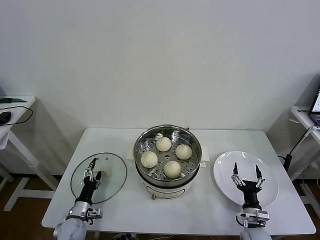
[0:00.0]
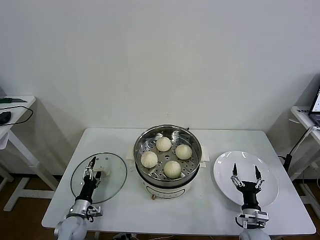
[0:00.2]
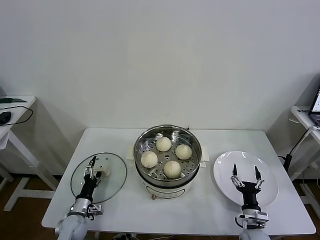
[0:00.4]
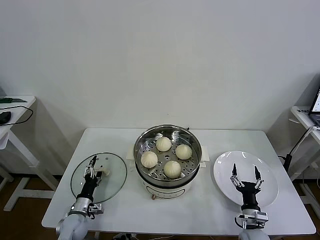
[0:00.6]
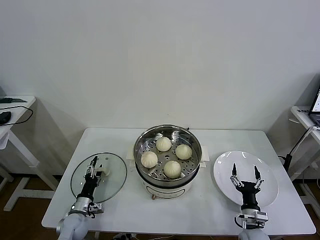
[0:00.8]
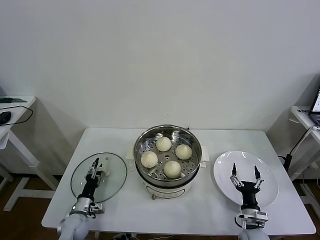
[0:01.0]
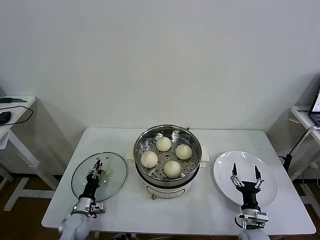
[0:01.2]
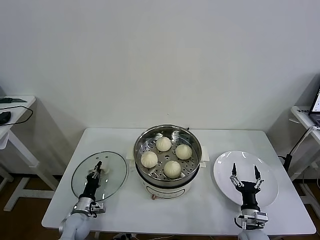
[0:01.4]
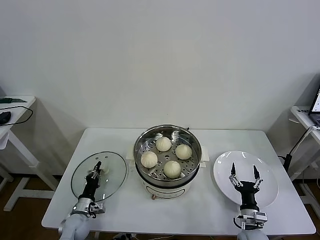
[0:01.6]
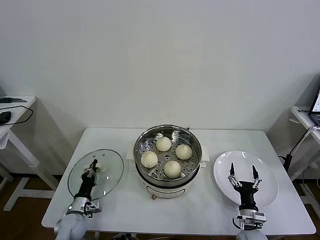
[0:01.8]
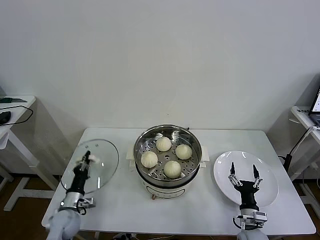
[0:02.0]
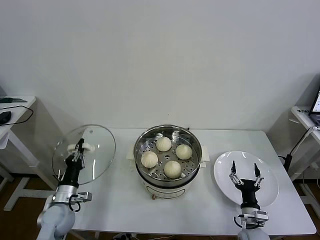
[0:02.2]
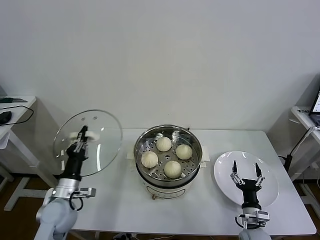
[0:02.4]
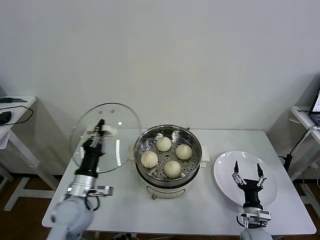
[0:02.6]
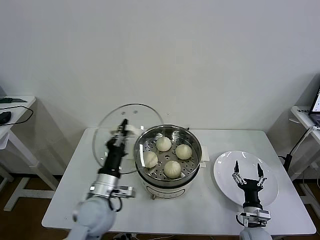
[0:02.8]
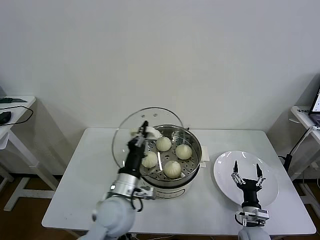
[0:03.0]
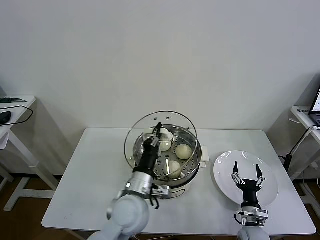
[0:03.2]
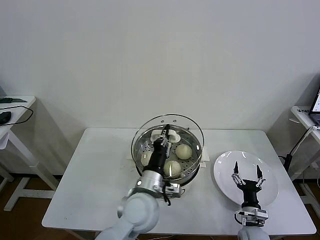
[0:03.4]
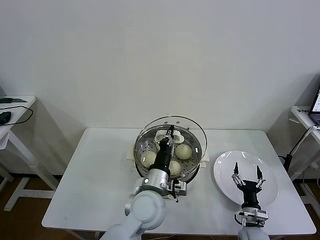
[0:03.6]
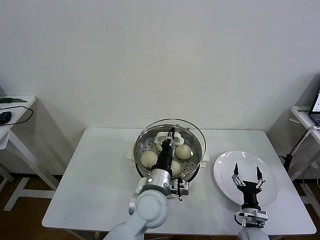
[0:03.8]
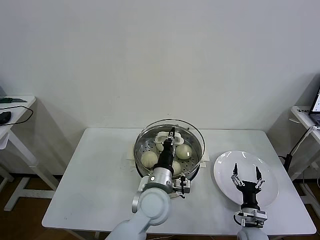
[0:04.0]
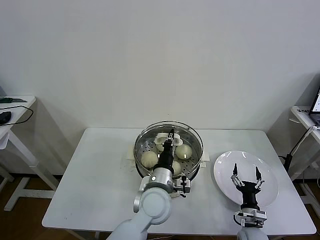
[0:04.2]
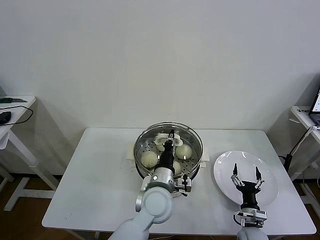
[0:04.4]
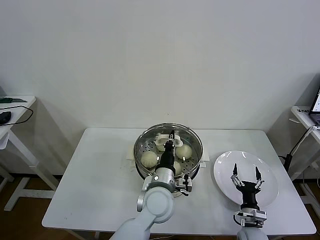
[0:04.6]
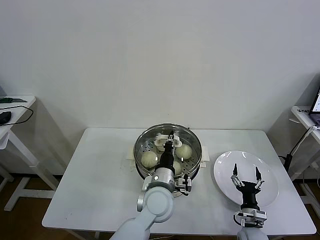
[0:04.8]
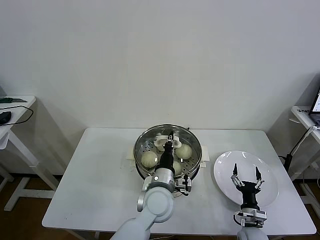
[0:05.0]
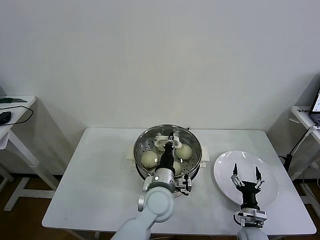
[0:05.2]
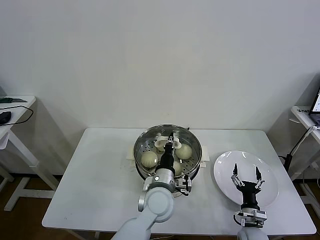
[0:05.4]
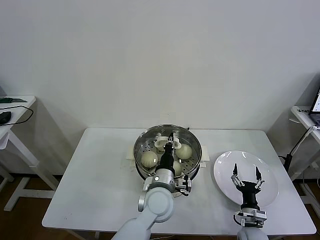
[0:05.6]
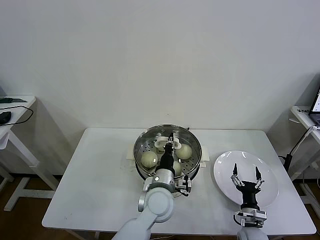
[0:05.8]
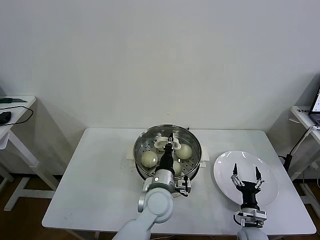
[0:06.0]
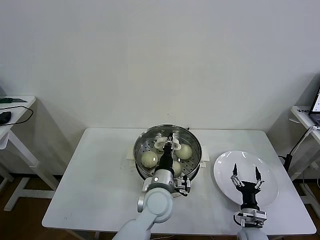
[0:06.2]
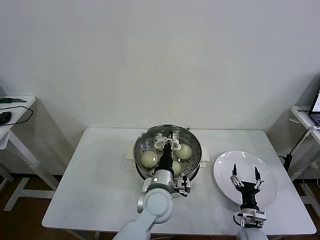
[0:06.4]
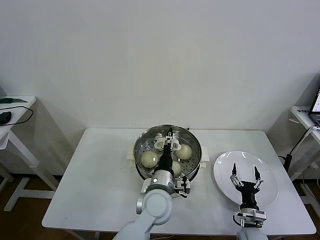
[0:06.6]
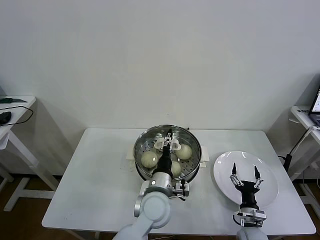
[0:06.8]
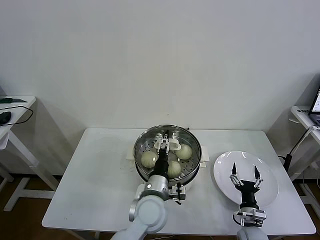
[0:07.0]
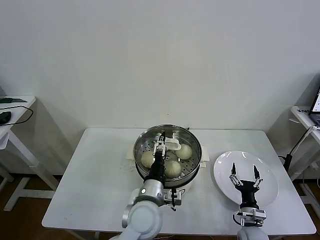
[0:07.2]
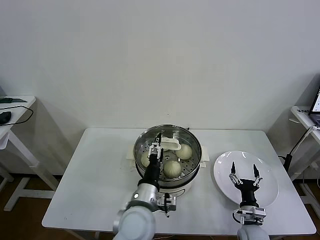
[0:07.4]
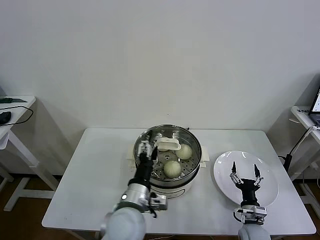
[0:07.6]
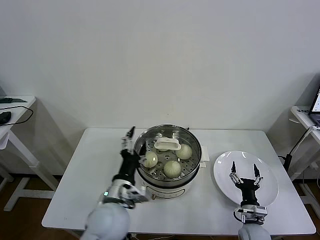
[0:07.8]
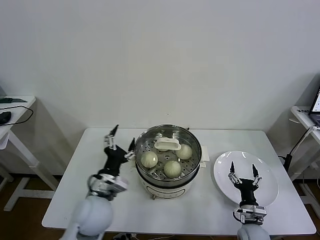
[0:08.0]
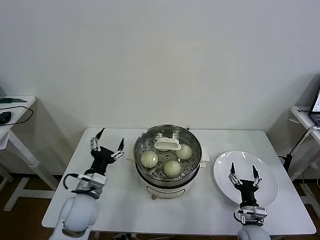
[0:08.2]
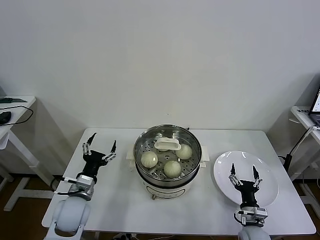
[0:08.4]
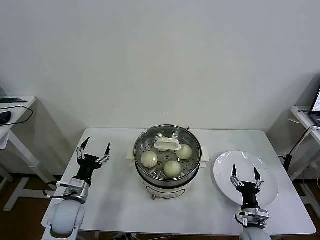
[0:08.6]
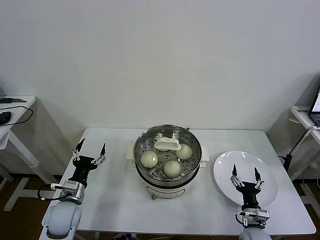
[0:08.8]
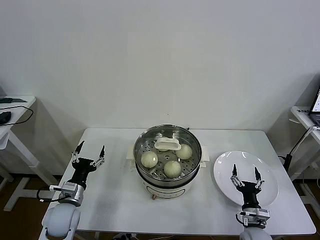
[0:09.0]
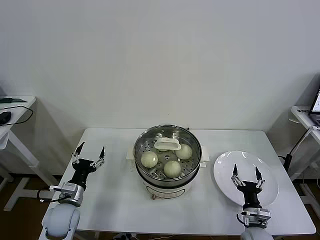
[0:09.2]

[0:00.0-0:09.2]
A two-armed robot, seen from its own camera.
Task of the whole recording: take steamed baozi put them in steamer then cover it.
Step, 0:01.8 to 0:06.4: Place the pot lid on the steamer with left gripper.
0:00.0 to 0:01.6: The left gripper closes.
0:01.6 to 0:03.0: The left gripper goes some 30 cm upward and to the right.
0:03.0 to 0:04.6: The left gripper travels to the right by roughly 15 cm.
0:04.6 to 0:06.2: There are only small adjustments of the grippers.
0:06.2 to 0:07.6: The left gripper heads backward and to the left, covering some 10 cm, and opens up.
0:07.6 to 0:09.2: The left gripper is displaced to the left and downward by roughly 25 cm.

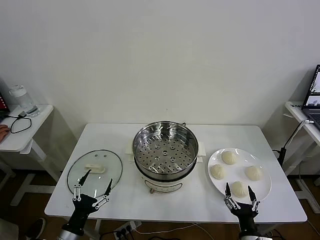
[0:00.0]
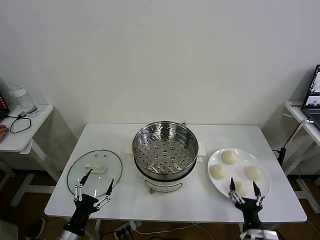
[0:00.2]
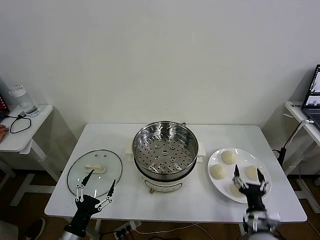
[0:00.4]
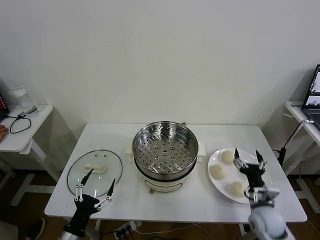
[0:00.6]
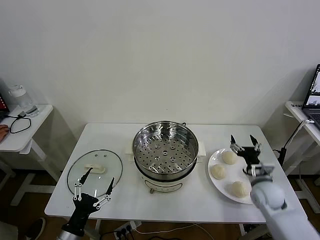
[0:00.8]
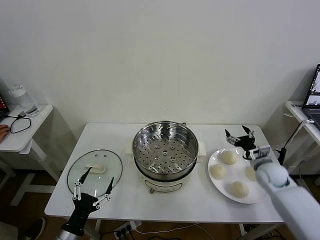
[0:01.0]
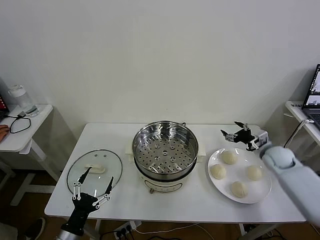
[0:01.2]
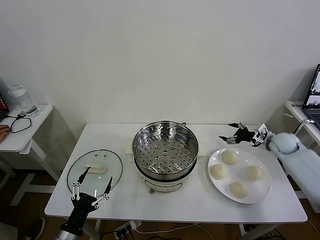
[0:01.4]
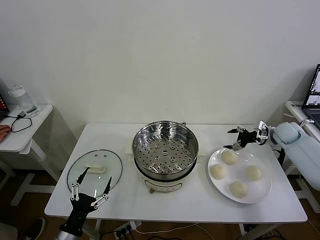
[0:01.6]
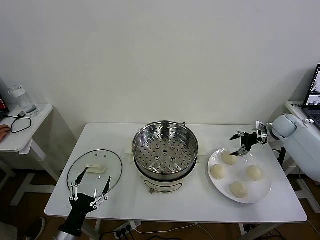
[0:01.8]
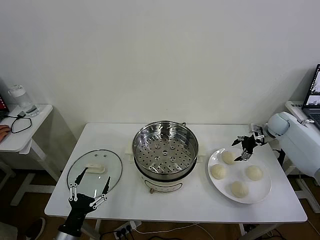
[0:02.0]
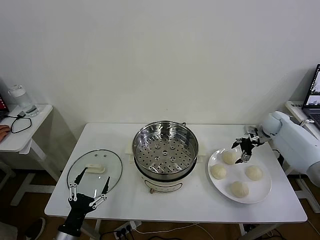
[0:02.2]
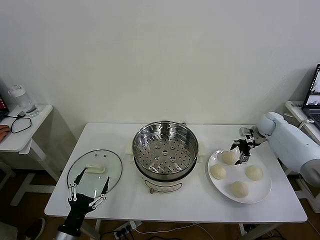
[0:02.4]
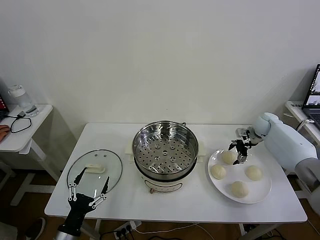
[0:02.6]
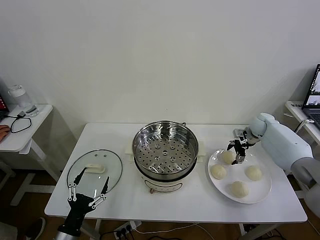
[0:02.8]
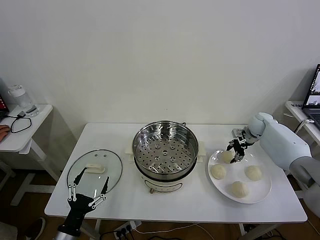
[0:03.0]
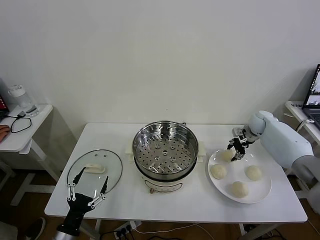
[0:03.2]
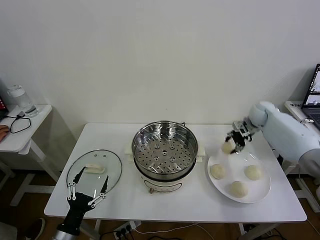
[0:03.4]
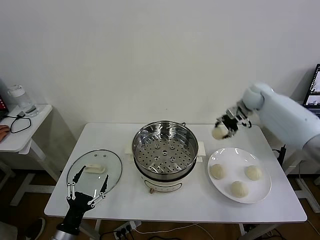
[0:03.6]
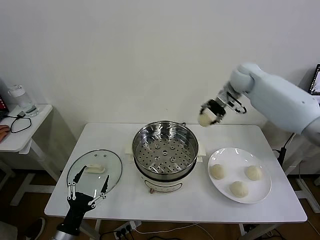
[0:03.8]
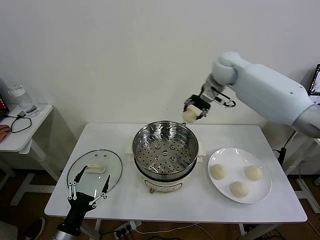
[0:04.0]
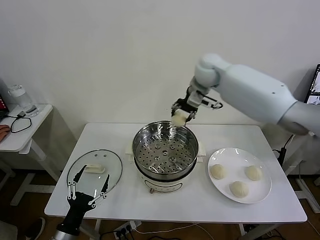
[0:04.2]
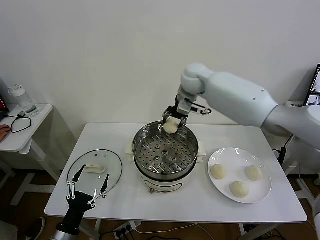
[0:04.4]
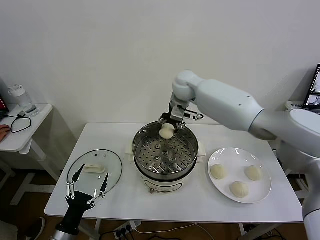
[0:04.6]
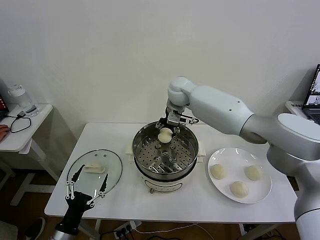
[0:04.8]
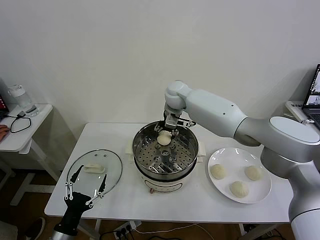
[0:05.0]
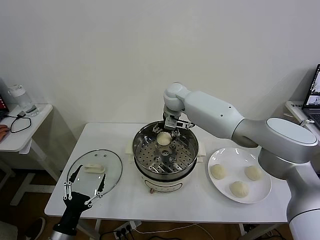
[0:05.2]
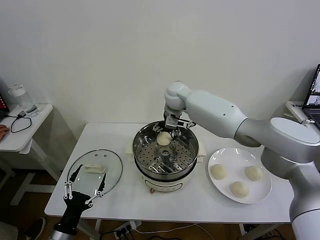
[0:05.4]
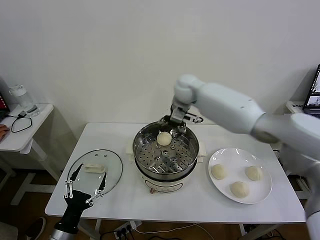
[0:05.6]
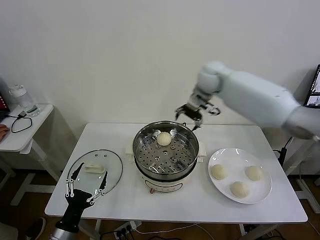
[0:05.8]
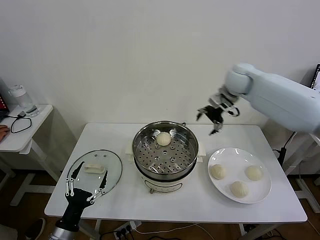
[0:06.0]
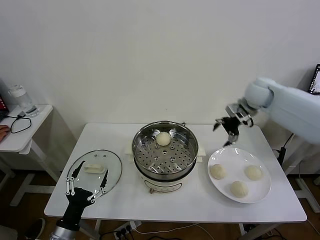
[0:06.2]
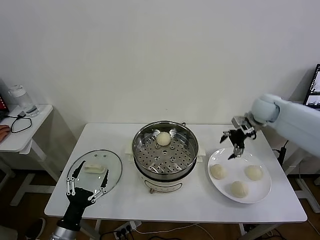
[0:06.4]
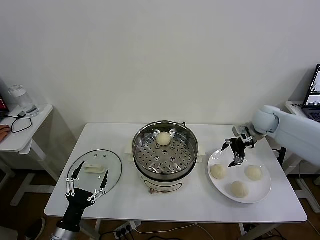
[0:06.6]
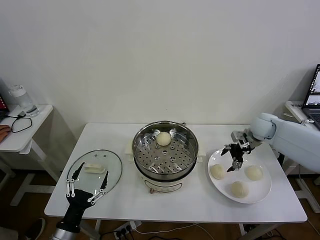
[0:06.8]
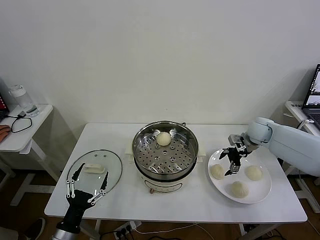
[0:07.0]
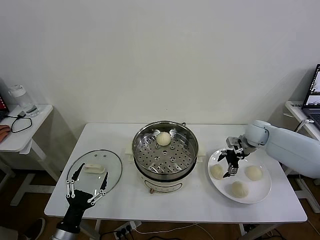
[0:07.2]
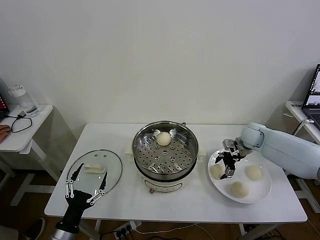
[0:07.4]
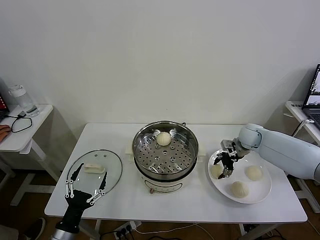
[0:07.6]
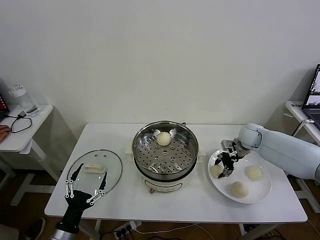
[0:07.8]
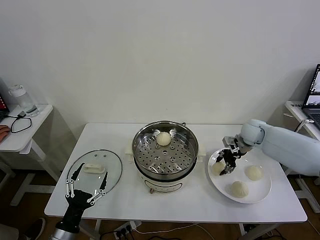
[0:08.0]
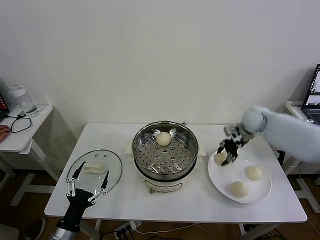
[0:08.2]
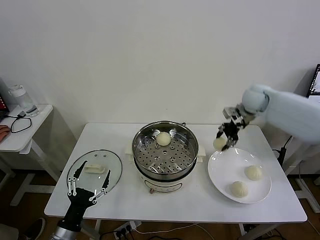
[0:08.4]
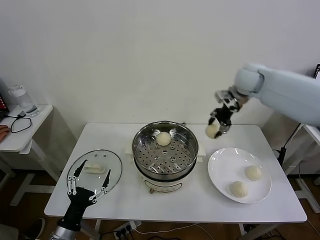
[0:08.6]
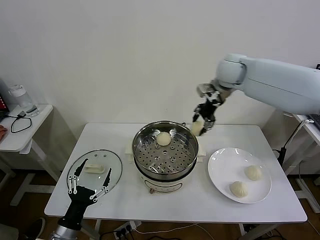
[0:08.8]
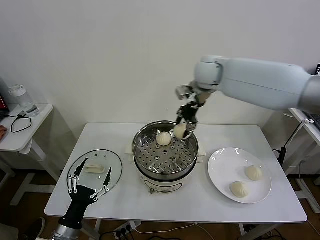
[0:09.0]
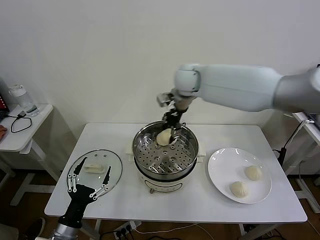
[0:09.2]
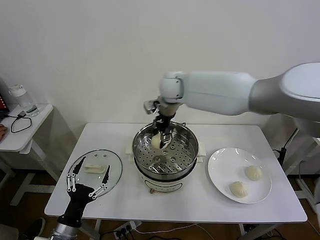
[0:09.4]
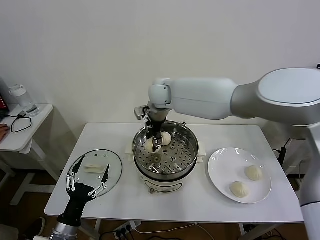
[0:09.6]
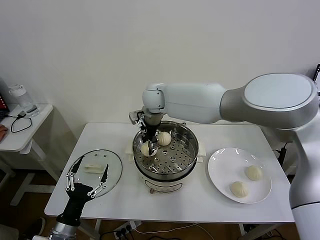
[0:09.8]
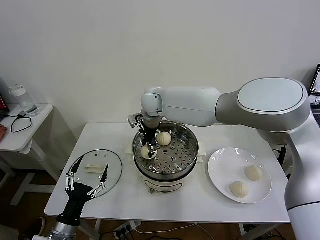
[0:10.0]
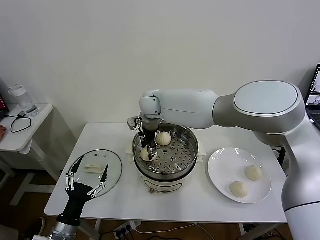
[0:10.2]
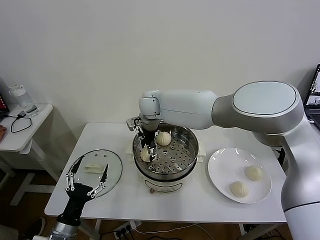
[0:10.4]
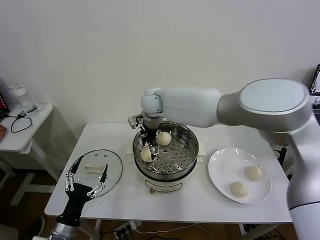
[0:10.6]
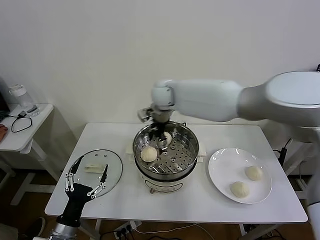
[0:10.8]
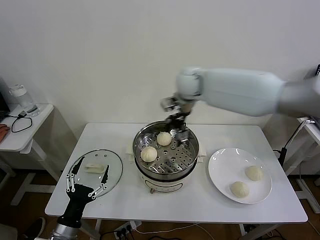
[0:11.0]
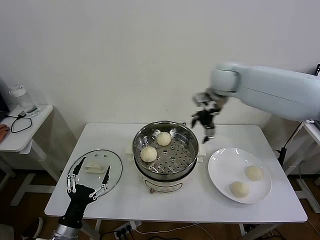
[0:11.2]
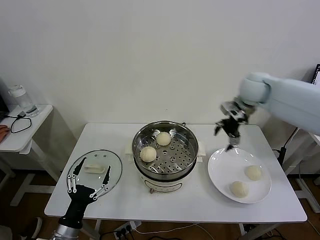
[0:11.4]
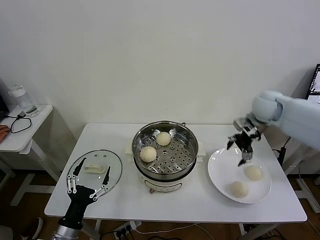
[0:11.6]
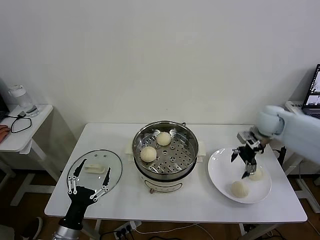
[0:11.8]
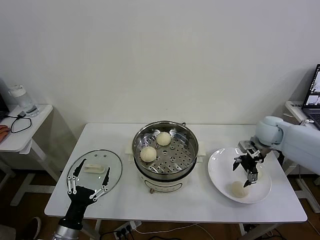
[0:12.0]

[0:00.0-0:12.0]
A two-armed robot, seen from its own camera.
Task of the whole recording: take steamed baozi put them in steamer then cover it.
Step, 0:00.0 to 0:03.0: Grasp the baozi in the plate with right gripper.
Step, 0:03.2 to 0:05.2: Place the baozi on the steamer with right gripper.
Step, 0:05.4 to 0:07.8: Grasp the baozi in the plate with right gripper.
Step, 0:08.0 to 0:10.4: Place the baozi on the steamer with right gripper.
0:01.6 to 0:03.0: The right gripper moves to the left and forward, some 10 cm, and closes.
0:03.0 to 0:04.4: The right gripper shifts about 40 cm to the left and upward.
0:04.4 to 0:06.0: The right gripper moves to the right, some 20 cm, and opens.
0:06.0 to 0:07.6: The right gripper shifts some 20 cm downward, and closes.
0:07.6 to 0:09.0: The right gripper goes some 35 cm upward and to the left.
0:09.0 to 0:10.4: The right gripper goes some 20 cm to the left and downward, and opens.
0:10.4 to 0:12.0: The right gripper shifts approximately 40 cm to the right.

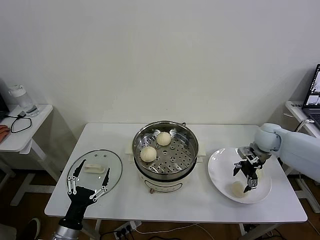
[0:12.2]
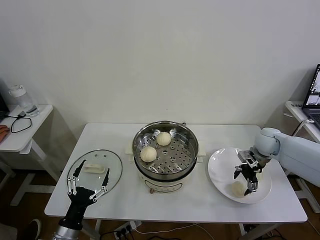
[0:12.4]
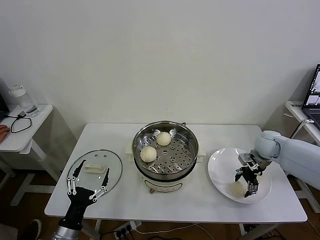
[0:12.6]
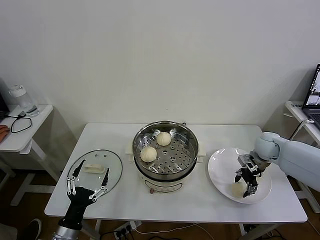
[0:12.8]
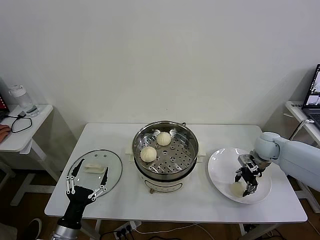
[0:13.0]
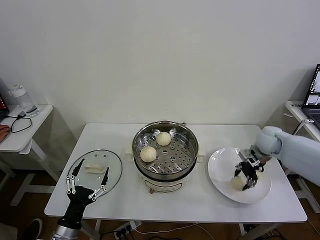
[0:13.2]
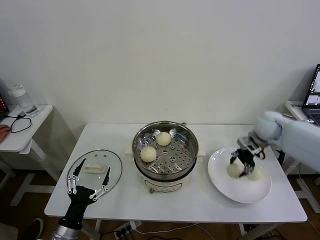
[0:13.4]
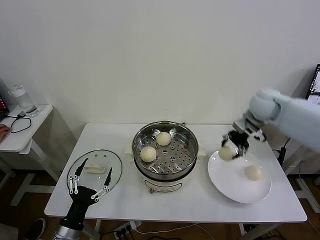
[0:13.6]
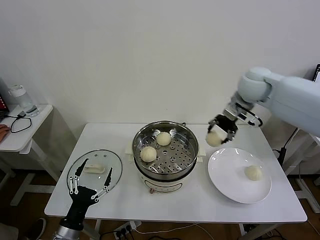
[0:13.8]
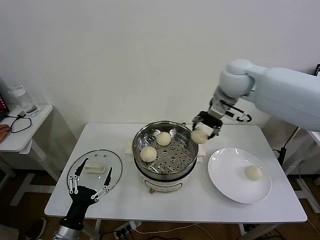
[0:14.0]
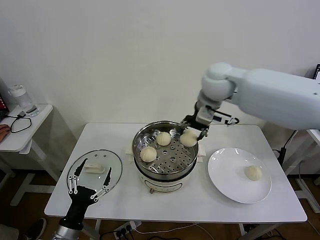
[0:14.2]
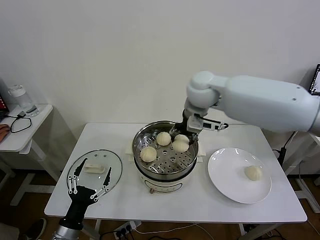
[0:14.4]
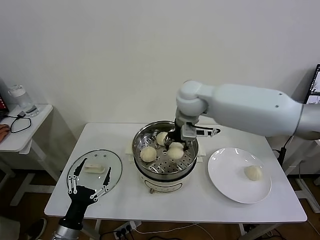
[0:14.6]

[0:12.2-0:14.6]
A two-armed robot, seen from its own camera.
Task of the whole recording: take steamed baozi put them in steamer then cover it.
0:12.2 to 0:13.4: The right gripper goes roughly 10 cm upward, and closes its fingers.
0:13.4 to 0:14.6: The right gripper moves to the left, about 30 cm.
